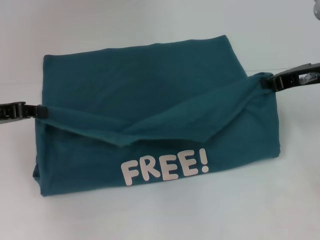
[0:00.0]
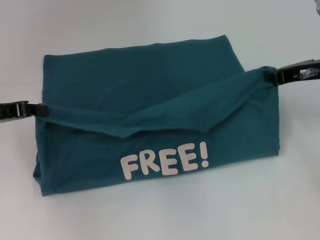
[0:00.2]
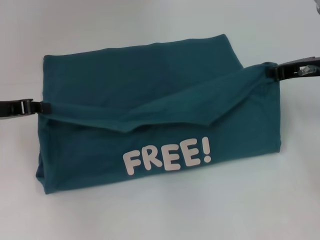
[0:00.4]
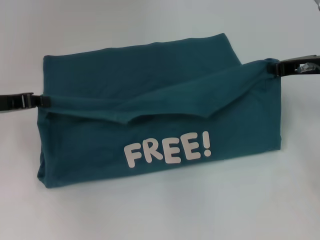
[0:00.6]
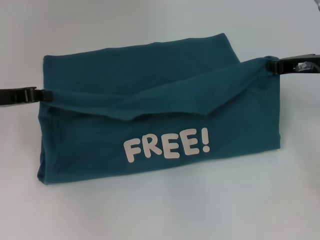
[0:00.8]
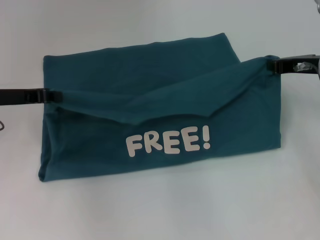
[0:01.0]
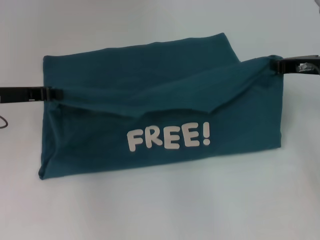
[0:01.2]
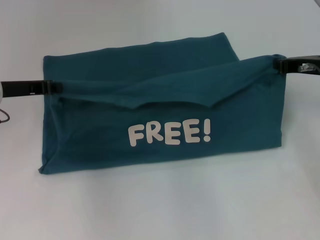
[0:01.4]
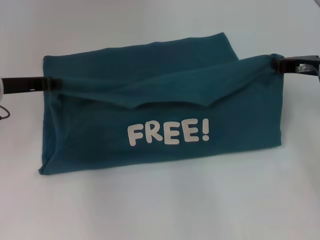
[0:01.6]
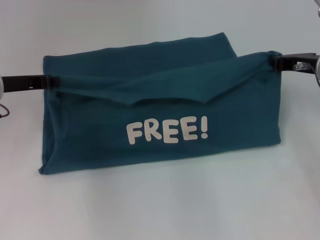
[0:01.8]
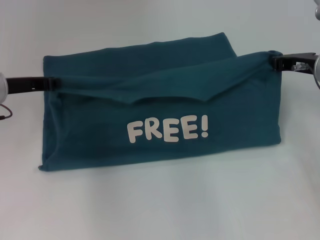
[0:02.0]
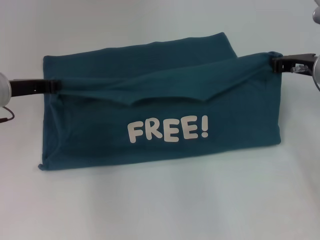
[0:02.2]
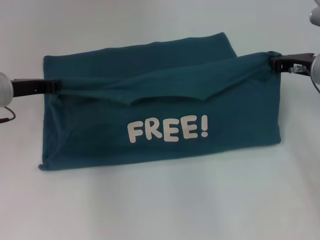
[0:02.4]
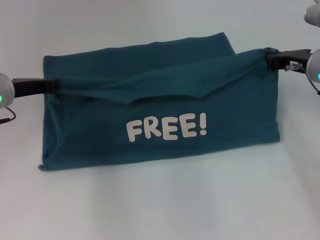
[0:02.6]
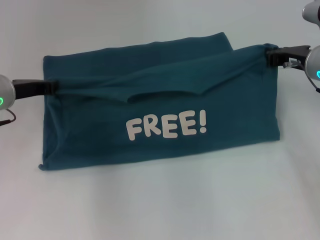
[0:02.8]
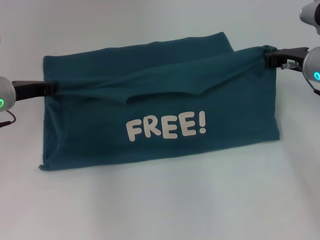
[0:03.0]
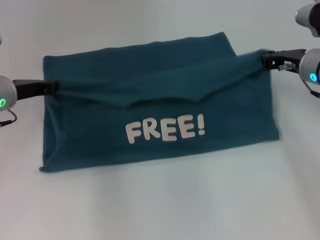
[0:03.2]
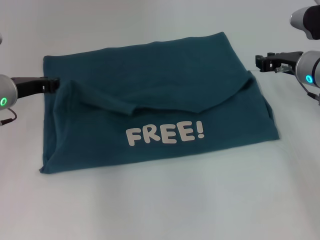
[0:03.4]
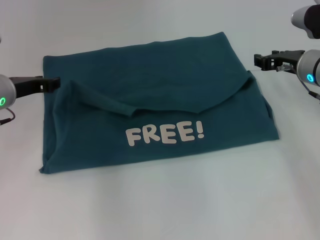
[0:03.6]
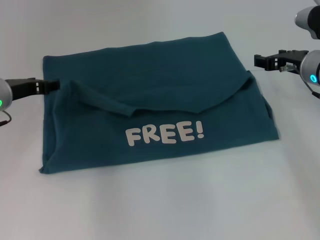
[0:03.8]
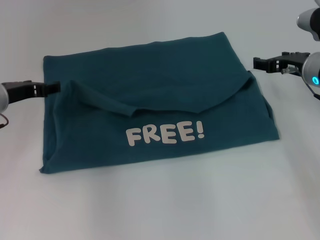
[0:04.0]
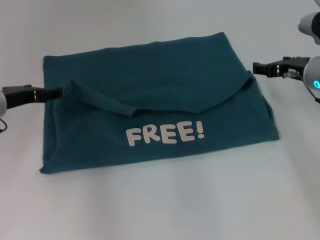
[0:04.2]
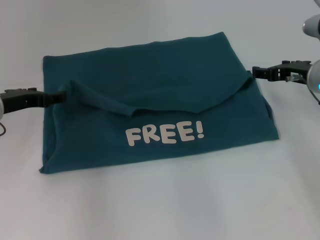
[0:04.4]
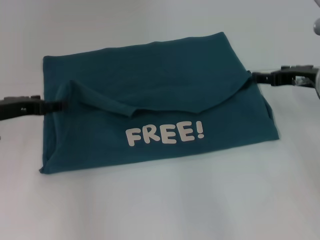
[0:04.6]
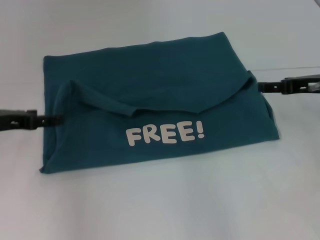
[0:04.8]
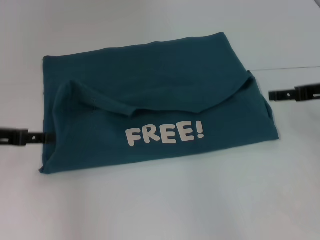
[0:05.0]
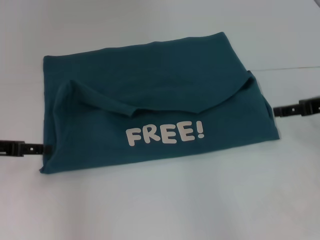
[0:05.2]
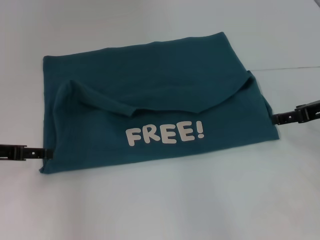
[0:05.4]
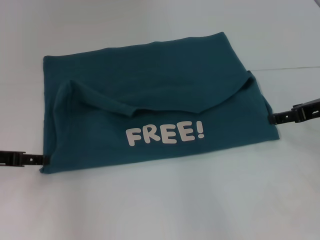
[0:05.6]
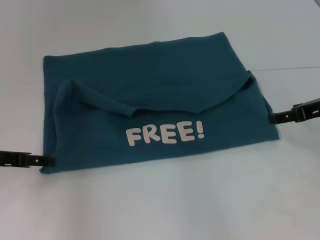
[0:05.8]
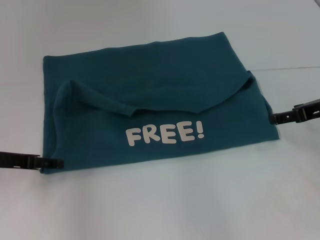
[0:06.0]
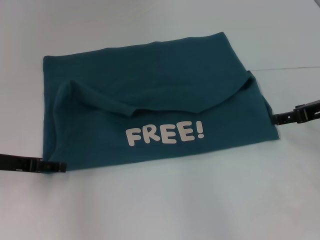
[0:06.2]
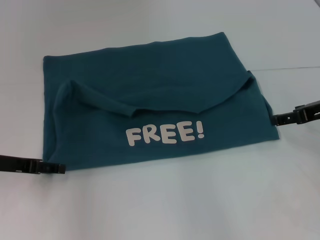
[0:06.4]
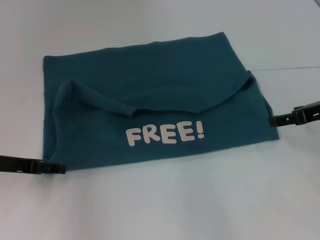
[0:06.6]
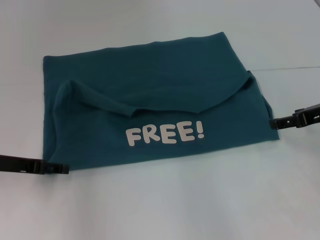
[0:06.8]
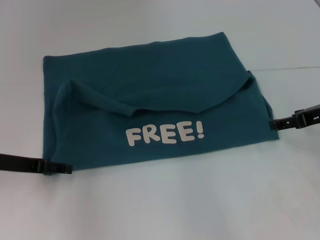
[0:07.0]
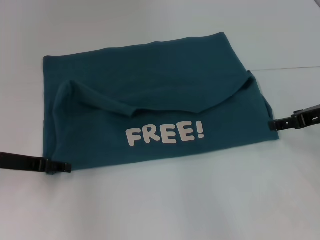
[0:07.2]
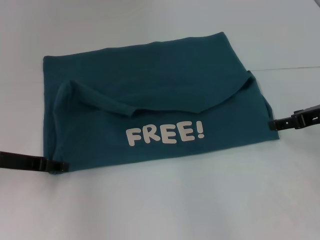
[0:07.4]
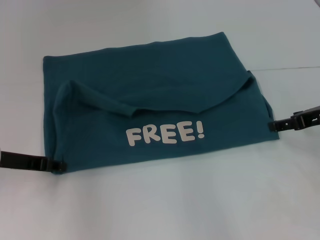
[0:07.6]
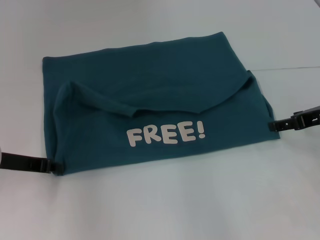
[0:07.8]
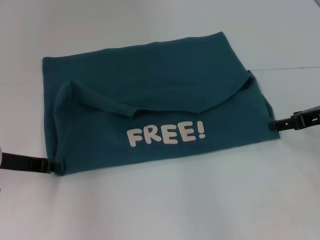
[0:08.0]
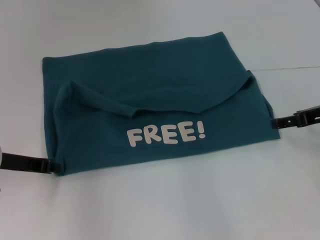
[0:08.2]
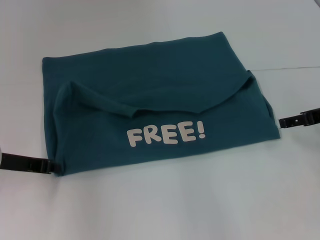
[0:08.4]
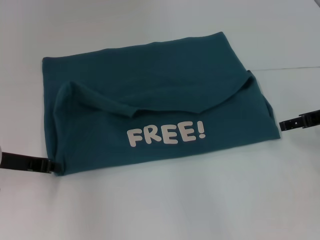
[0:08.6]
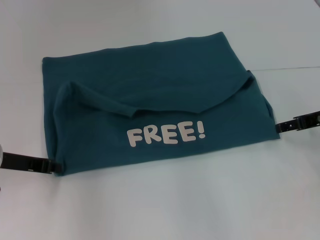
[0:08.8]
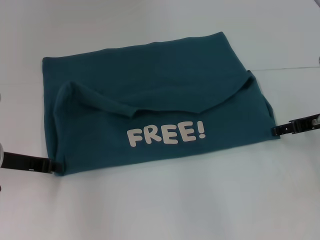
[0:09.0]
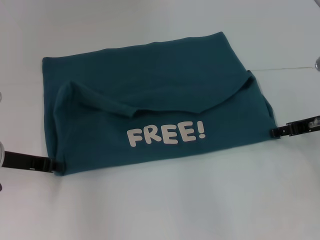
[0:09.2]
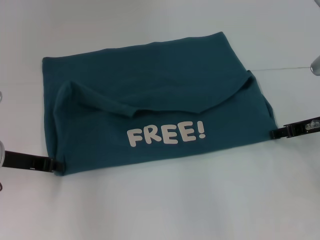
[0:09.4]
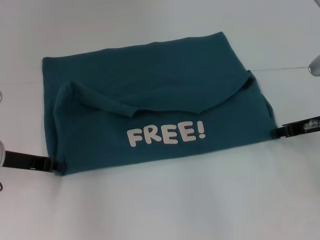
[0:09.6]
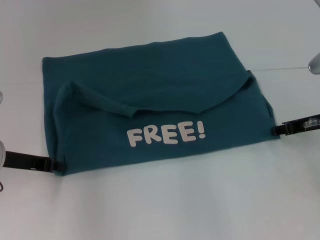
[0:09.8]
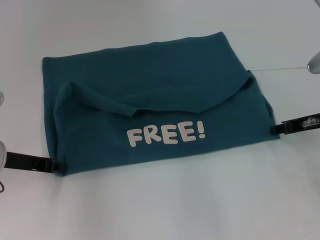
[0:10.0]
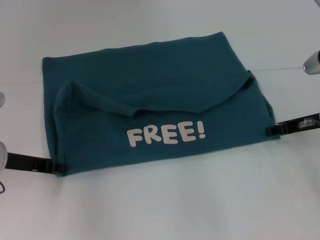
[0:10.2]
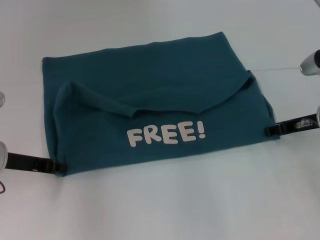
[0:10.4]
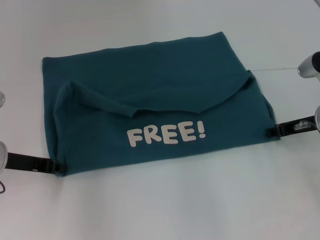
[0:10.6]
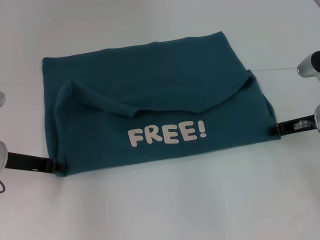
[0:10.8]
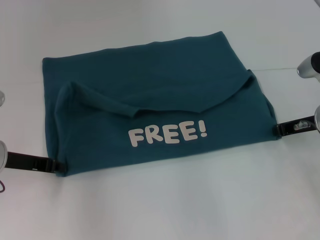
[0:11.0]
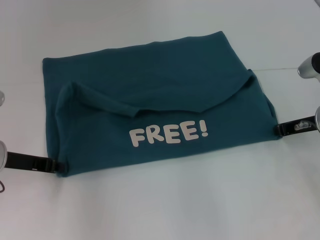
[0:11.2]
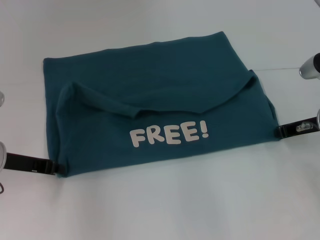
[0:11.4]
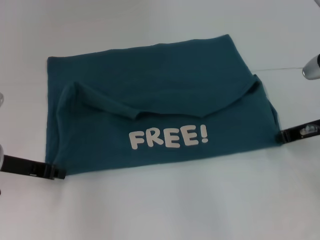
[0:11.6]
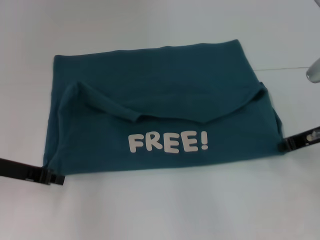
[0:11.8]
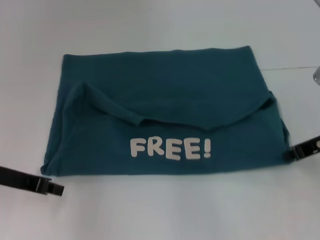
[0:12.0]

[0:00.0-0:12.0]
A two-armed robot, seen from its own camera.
Step, 0:00.0 to 0:03.4: Fold the clothes to the left.
Step, 0:00.0 to 0:03.4: Fold the clothes to the right.
0:00.0 to 0:01.6: The right gripper moves approximately 5 cm, while the left gripper travels forward by approximately 5 cm.
0:01.6 to 0:03.0: The grippers move only a little.
0:03.0 to 0:04.4: The left gripper opens. Meanwhile the right gripper opens up.
0:04.4 to 0:06.0: Both grippers move backward, roughly 5 cm.
0:07.6 to 0:09.0: The left gripper closes.
0:09.0 to 0:10.4: The right gripper closes.
0:10.4 to 0:12.0: The right gripper shifts by roughly 5 cm, and closes up.

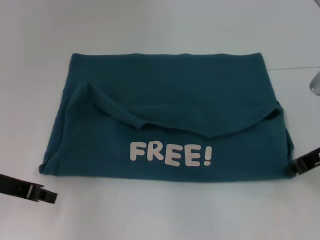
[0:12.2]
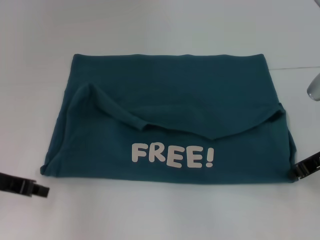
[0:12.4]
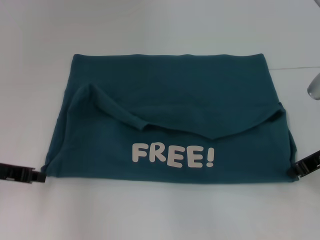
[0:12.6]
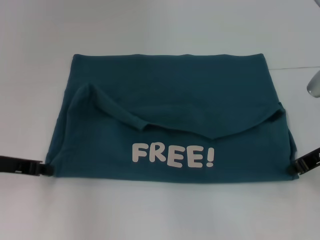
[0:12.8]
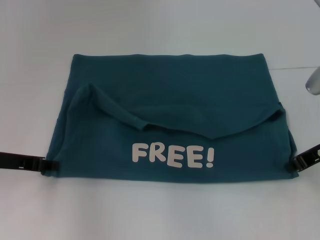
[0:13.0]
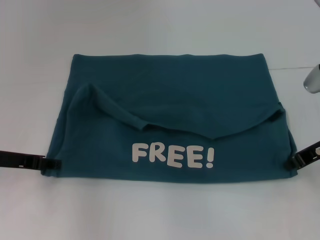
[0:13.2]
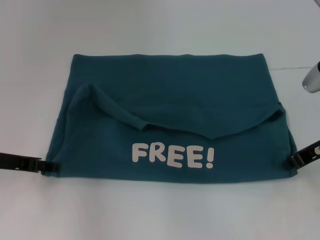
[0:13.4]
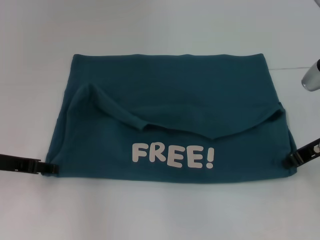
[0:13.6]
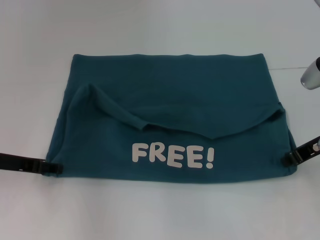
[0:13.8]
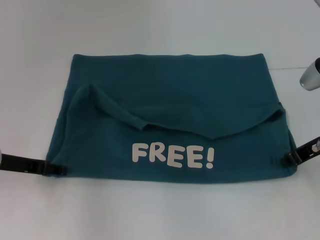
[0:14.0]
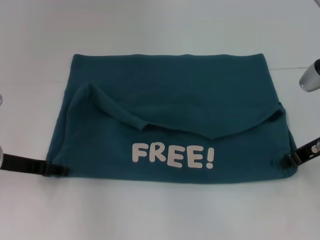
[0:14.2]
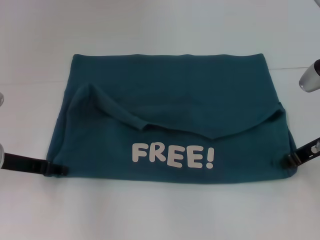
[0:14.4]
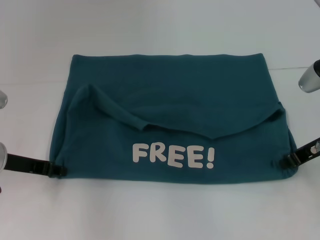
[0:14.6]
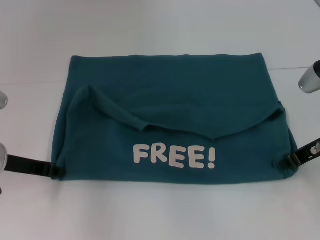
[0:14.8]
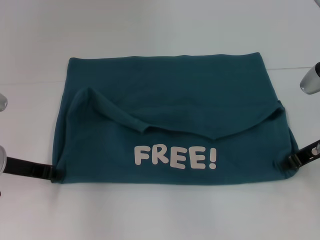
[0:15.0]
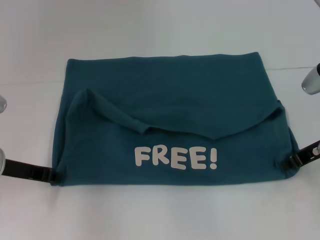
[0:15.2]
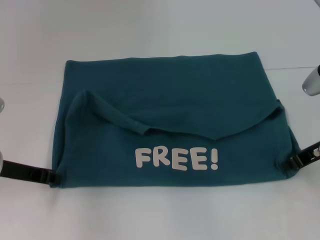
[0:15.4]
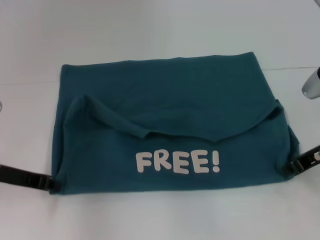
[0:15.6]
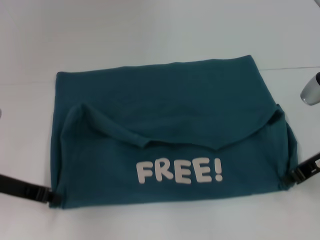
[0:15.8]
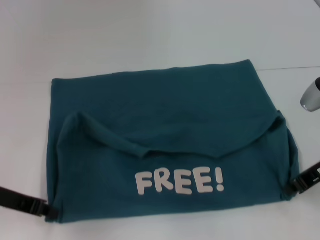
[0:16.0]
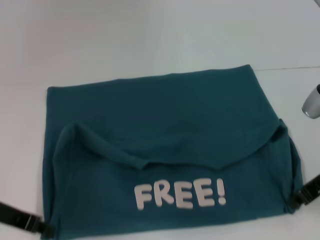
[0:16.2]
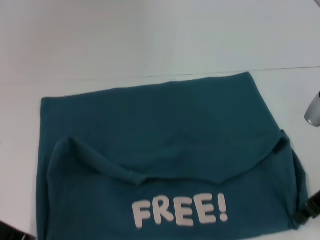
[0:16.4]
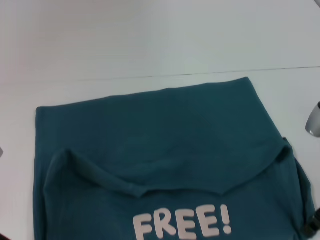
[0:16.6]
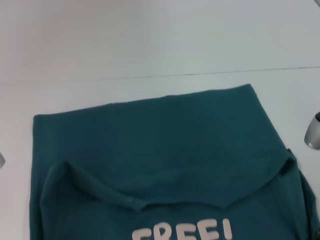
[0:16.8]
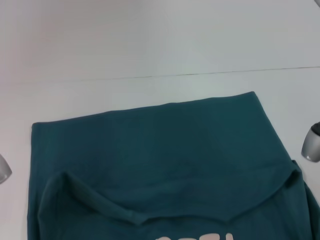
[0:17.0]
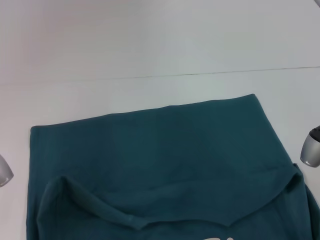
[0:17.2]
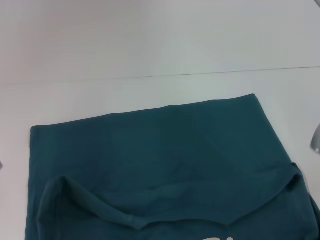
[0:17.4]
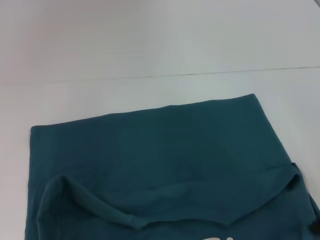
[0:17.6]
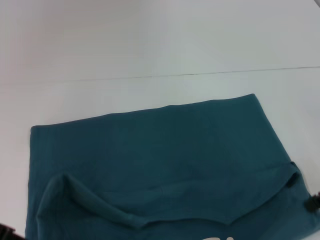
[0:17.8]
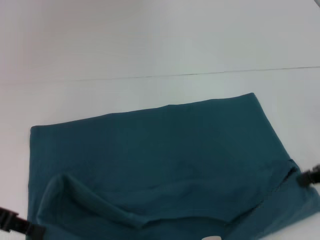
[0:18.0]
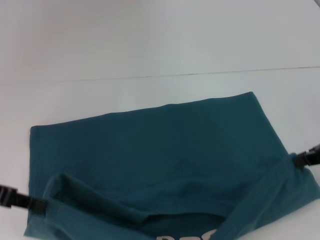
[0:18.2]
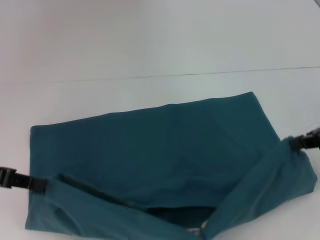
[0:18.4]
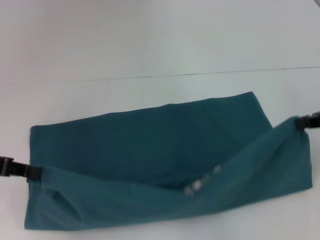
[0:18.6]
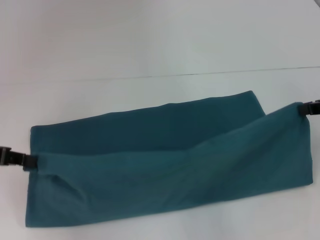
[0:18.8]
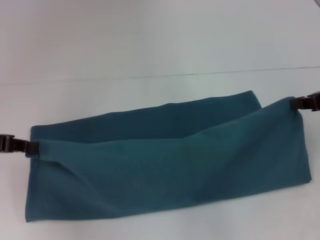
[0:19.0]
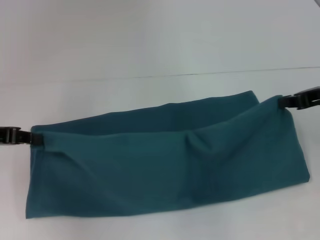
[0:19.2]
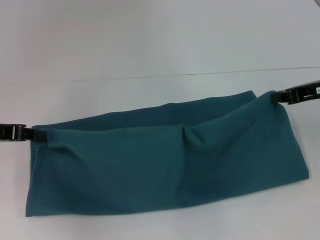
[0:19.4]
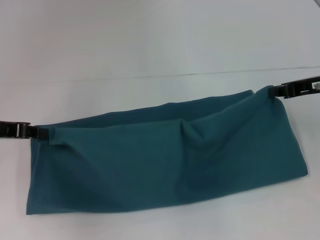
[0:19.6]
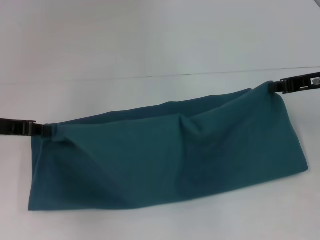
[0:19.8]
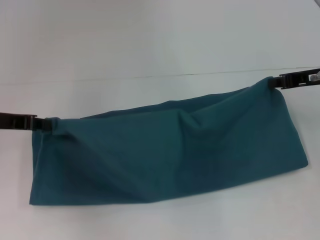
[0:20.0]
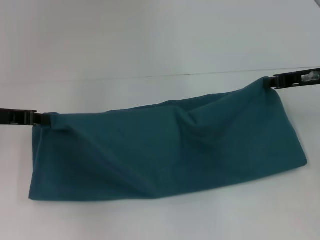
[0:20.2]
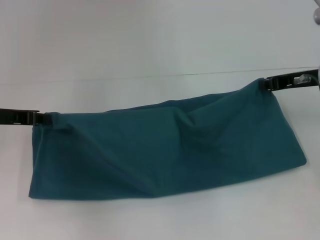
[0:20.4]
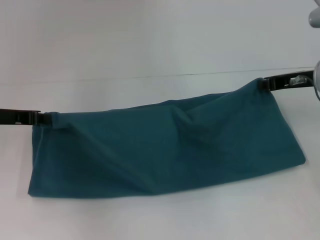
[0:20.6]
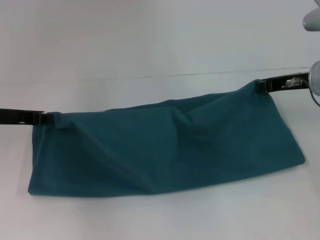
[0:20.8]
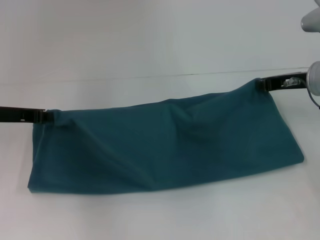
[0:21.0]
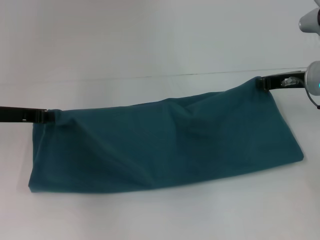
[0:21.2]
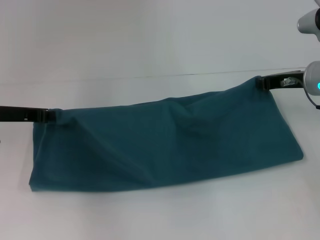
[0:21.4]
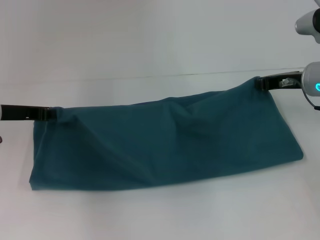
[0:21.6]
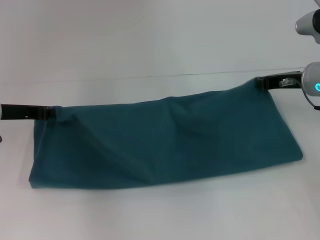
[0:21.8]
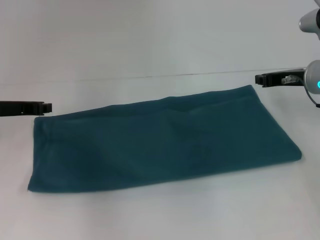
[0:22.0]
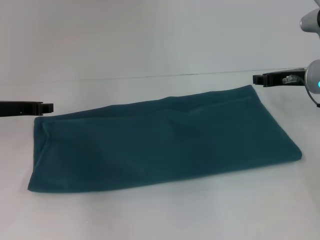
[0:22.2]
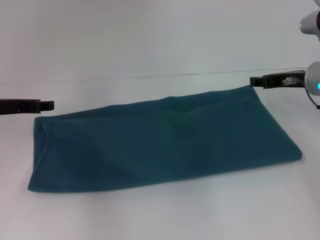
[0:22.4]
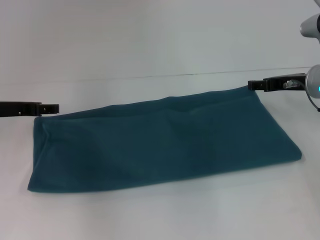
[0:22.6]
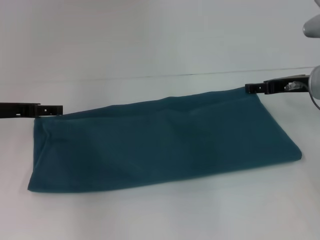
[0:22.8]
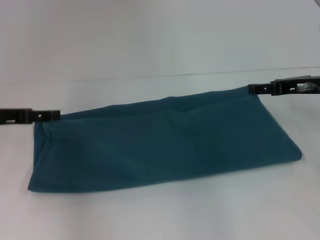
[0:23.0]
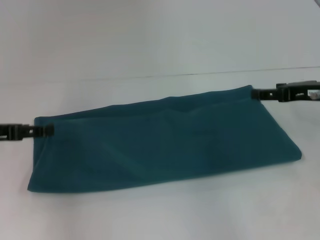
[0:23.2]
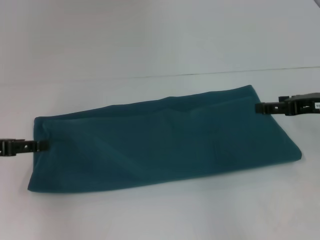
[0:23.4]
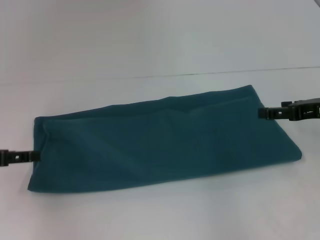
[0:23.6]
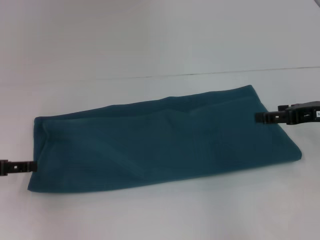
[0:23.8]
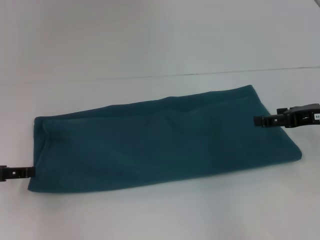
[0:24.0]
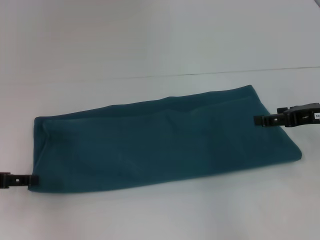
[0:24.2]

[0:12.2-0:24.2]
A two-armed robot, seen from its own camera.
Step, 0:12.2 to 0:16.8: Pull the clothes with your left hand.
Step, 0:12.2 to 0:16.8: Pull the clothes with your right hand.
Step, 0:17.0 to 0:22.4: Fold the clothes to the left.
Step, 0:17.0 to 0:22.4: Fold the clothes to the right.
0:12.2 to 0:13.8: The left gripper opens up.
0:13.8 to 0:15.2: The left gripper closes up.
0:15.2 to 0:16.6: The left gripper travels backward by roughly 5 cm.
0:16.6 to 0:18.2: The grippers both shift upward by approximately 5 cm.
0:18.2 to 0:19.8: The grippers both shift forward by some 5 cm.
0:19.8 to 0:21.2: The right gripper shifts by some 5 cm.
0:21.2 to 0:22.6: The right gripper opens. Meanwhile the left gripper opens its fingers.
0:22.6 to 0:24.2: The right gripper moves backward, about 10 cm, and opens. Meanwhile the left gripper moves backward and to the left, some 10 cm, and opens up.
